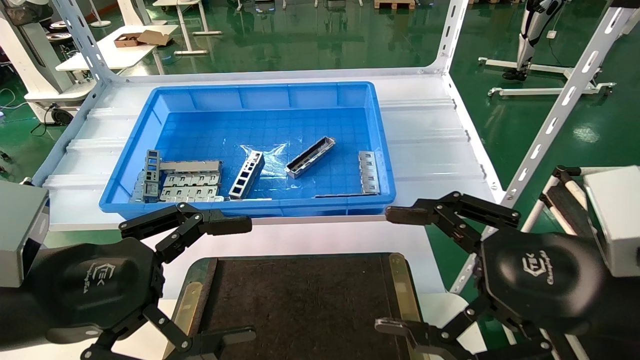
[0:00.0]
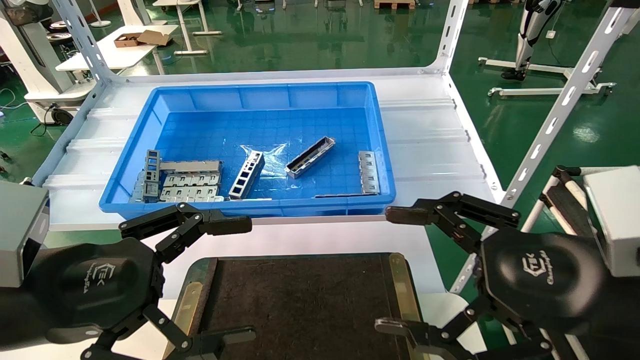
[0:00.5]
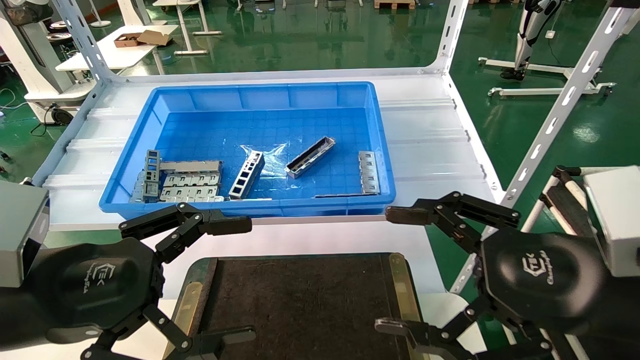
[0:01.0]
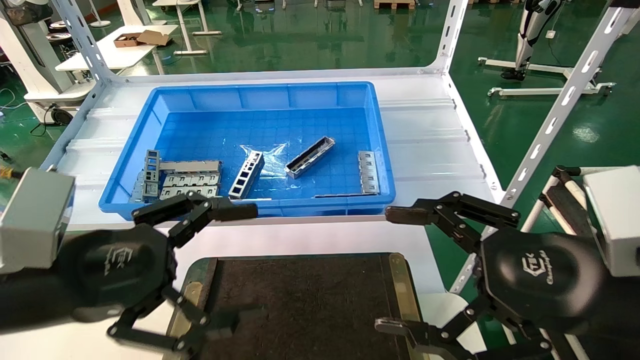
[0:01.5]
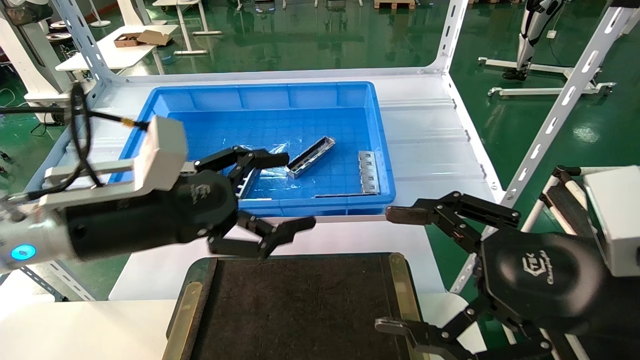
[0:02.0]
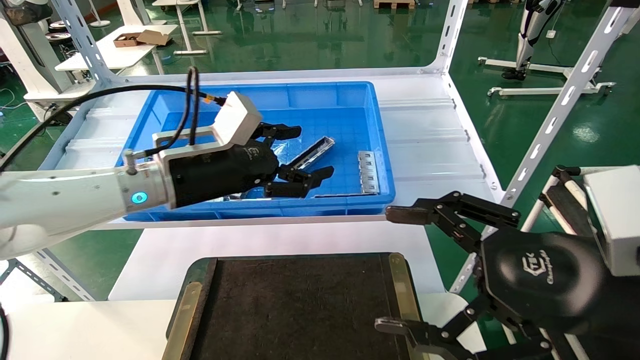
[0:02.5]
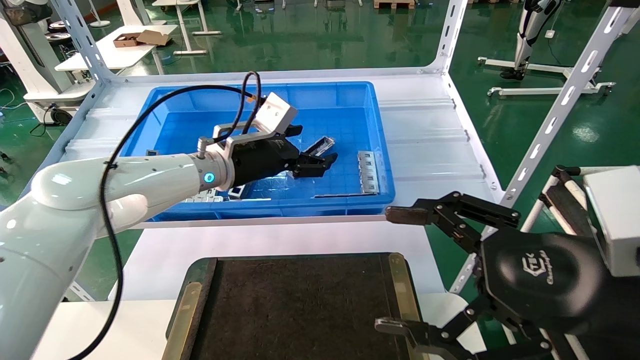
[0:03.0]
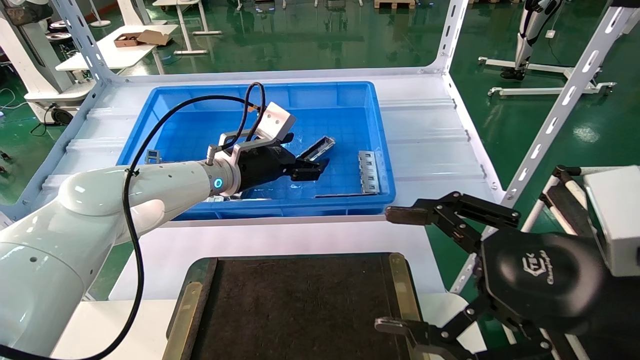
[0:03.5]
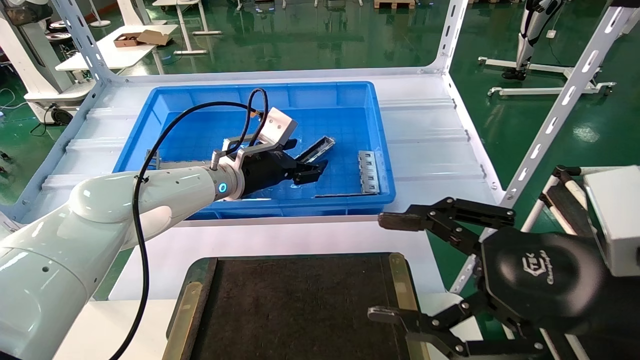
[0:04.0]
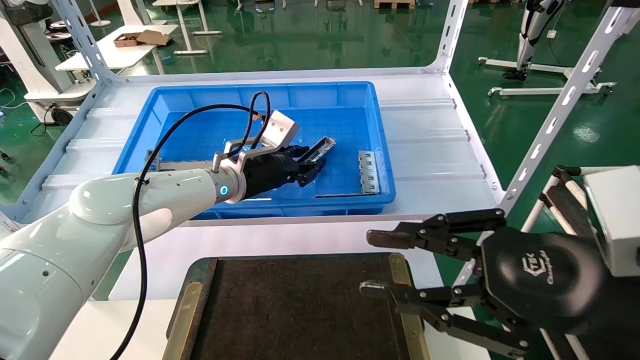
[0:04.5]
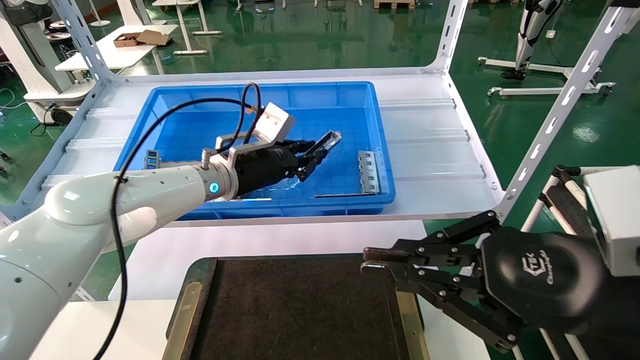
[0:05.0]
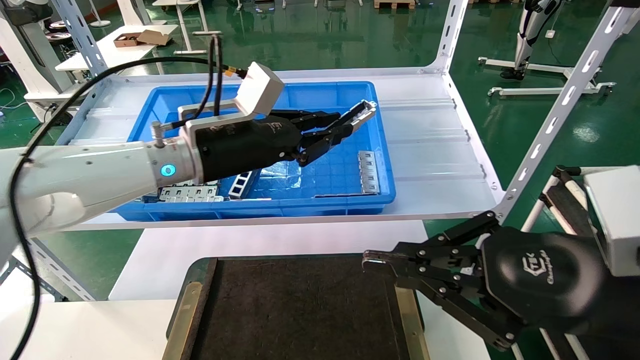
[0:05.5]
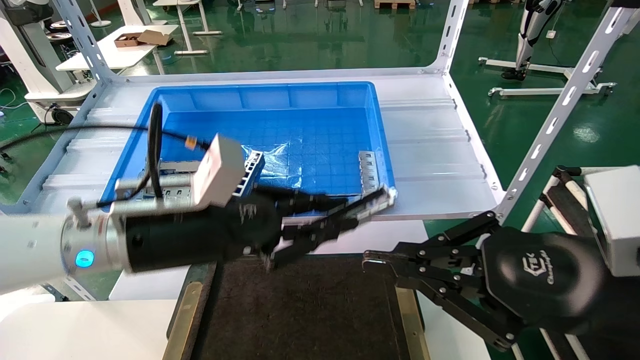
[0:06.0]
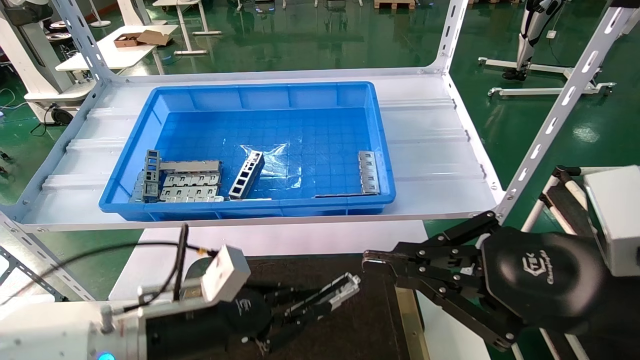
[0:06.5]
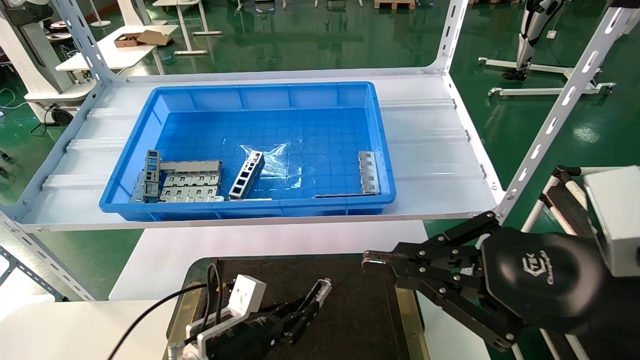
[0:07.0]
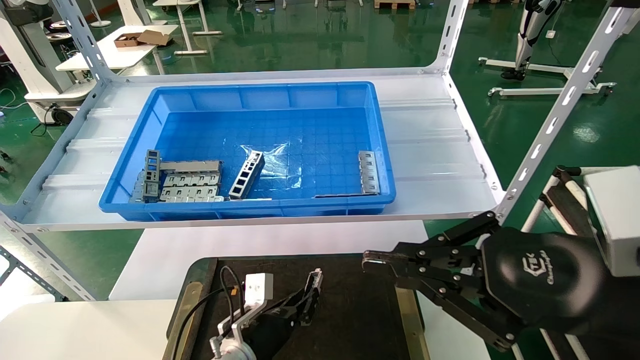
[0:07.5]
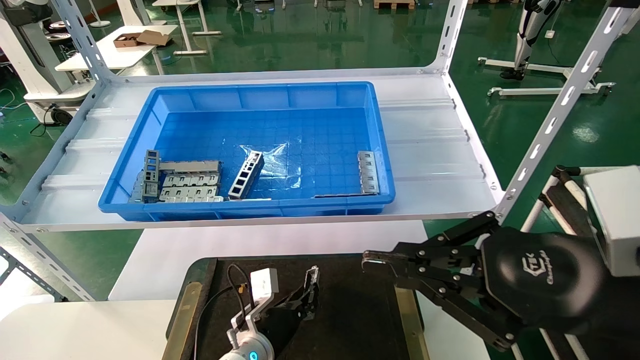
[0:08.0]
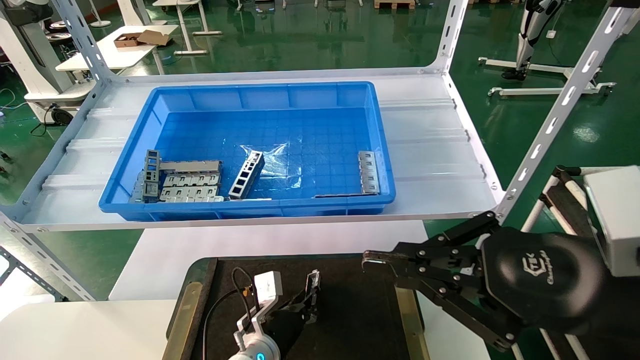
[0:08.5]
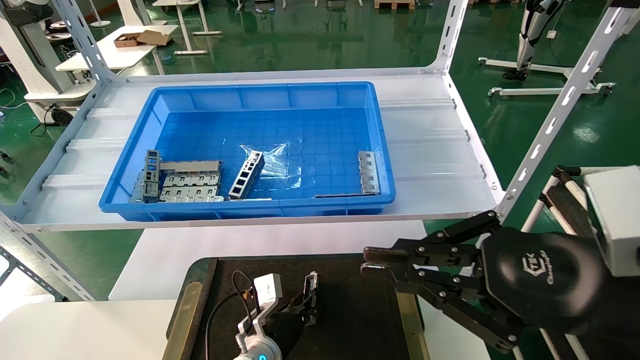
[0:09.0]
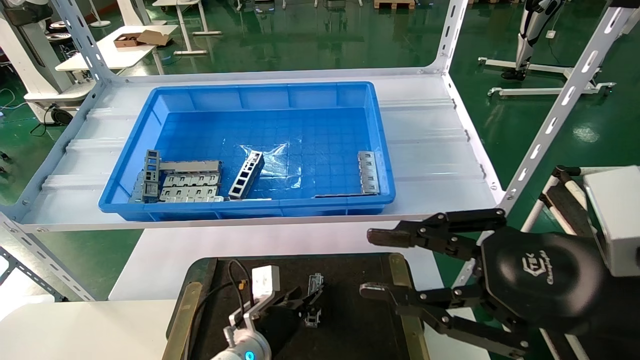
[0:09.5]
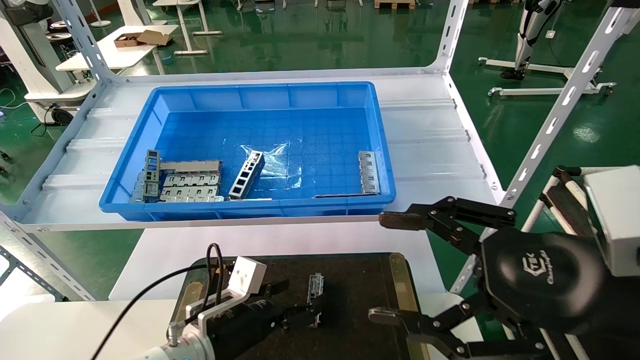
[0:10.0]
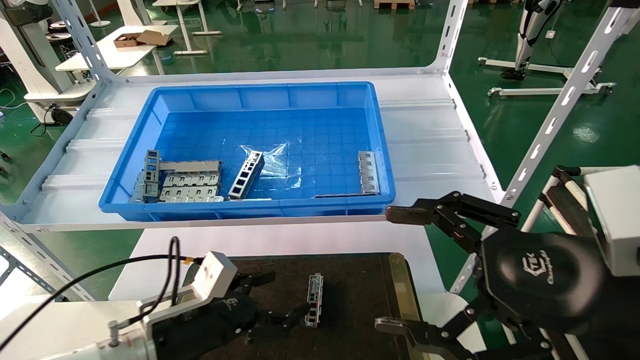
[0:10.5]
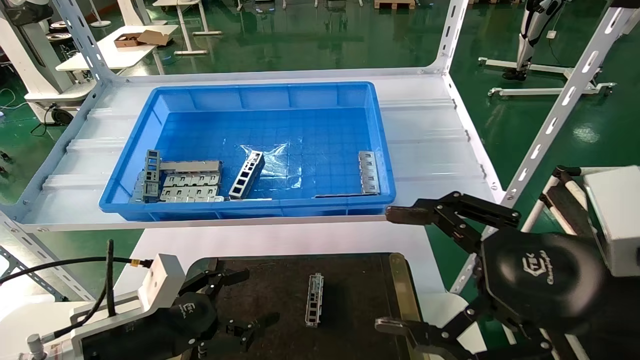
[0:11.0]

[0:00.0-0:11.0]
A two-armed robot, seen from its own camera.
Task of the whole recording: Grasp the part with one hand and place it on the black container.
Step, 0:02.0 to 0:06.5: Pick up the front USB bracket from the feeding area.
Step, 0:07.0 to 0:10.0: Place the front USB bracket into the box.
0:00.0 to 0:02.0: The left gripper shifts approximately 10 cm forward.
0:02.0 to 0:03.5: The left gripper moves forward, roughly 20 cm.
0:03.5 to 0:05.5: The left gripper goes approximately 10 cm backward, and closes up; the right gripper closes up.
0:05.5 to 0:07.5: The left gripper shifts approximately 35 cm downward.
0:07.5 to 0:09.0: There are only small adjustments of the grippers.
0:09.0 to 0:11.0: The left gripper travels to the left, upward and backward by approximately 25 cm, and opens. The right gripper opens up.
